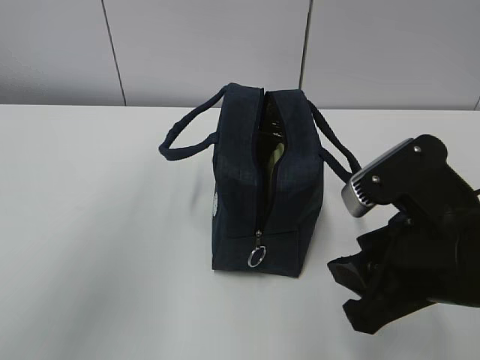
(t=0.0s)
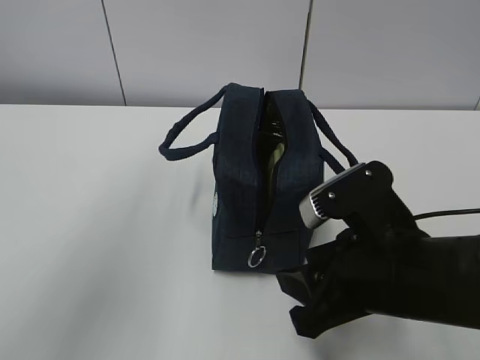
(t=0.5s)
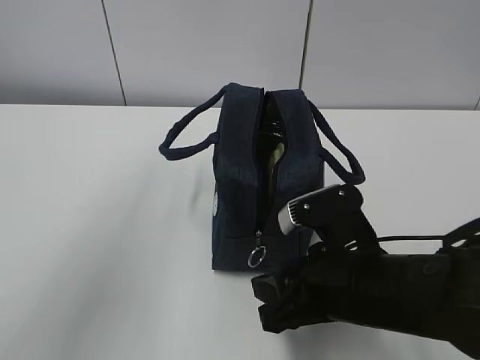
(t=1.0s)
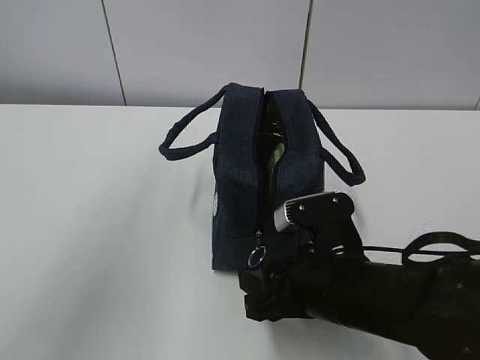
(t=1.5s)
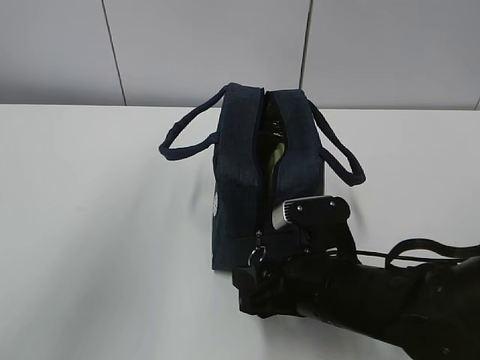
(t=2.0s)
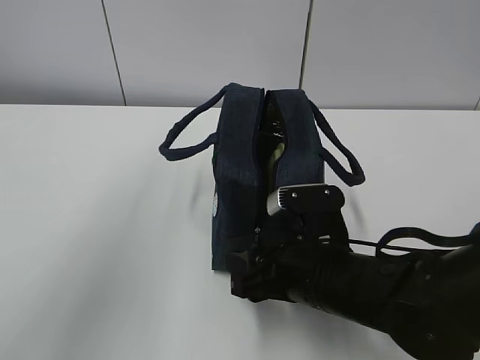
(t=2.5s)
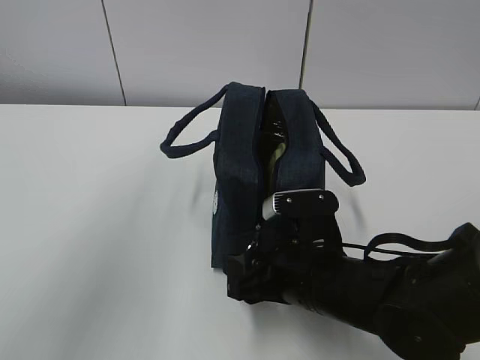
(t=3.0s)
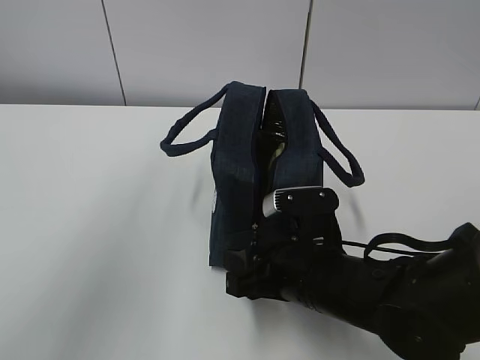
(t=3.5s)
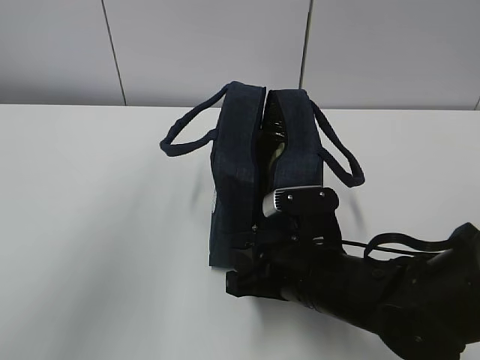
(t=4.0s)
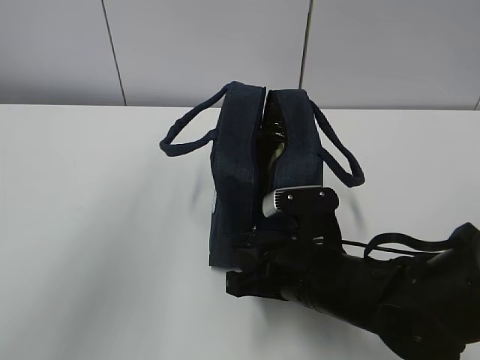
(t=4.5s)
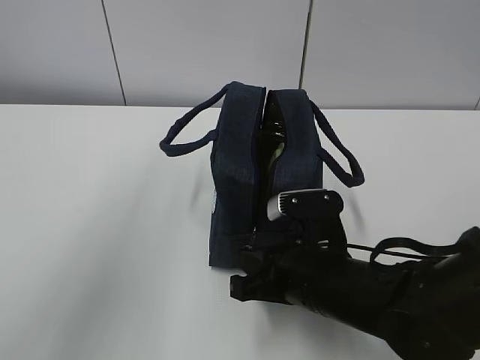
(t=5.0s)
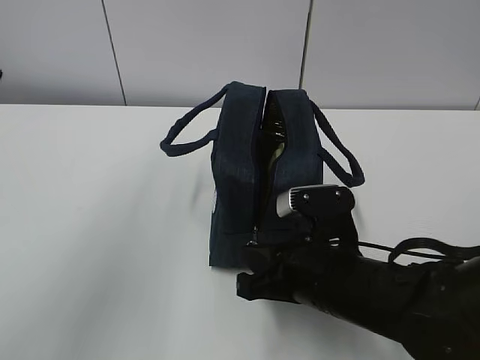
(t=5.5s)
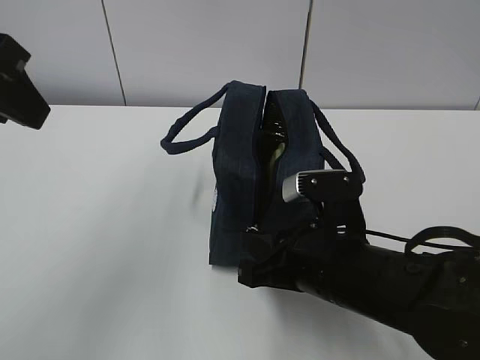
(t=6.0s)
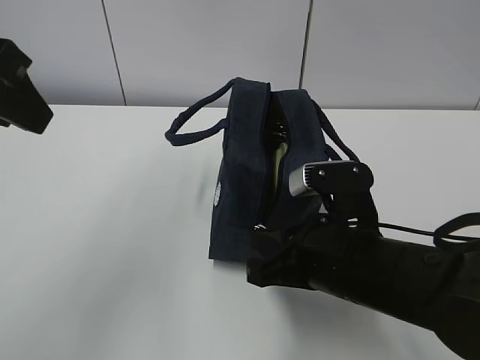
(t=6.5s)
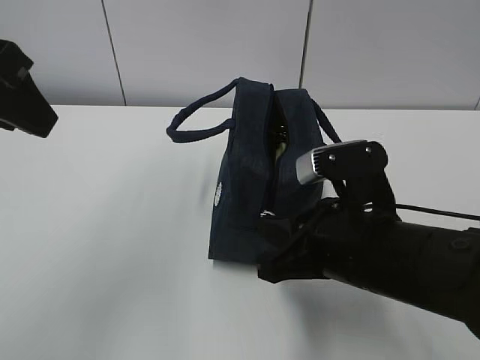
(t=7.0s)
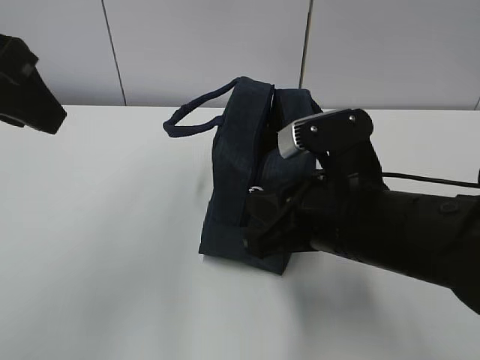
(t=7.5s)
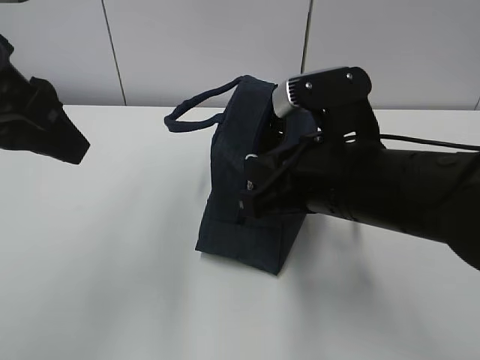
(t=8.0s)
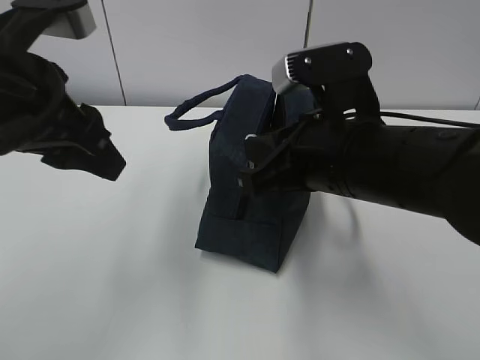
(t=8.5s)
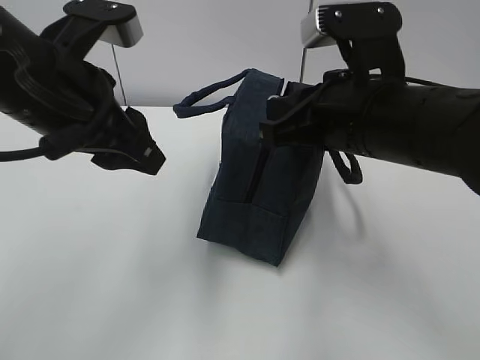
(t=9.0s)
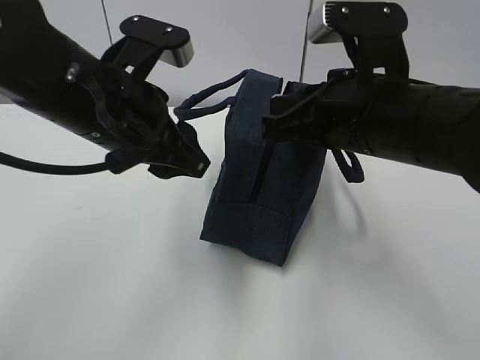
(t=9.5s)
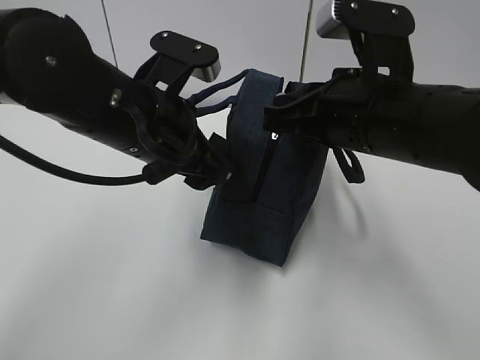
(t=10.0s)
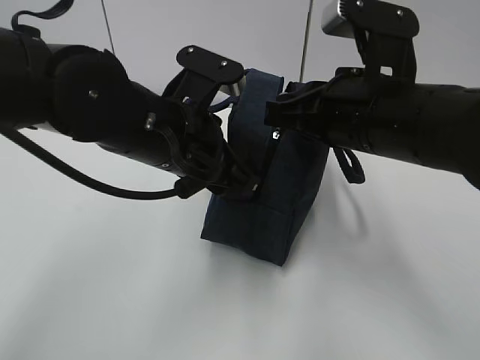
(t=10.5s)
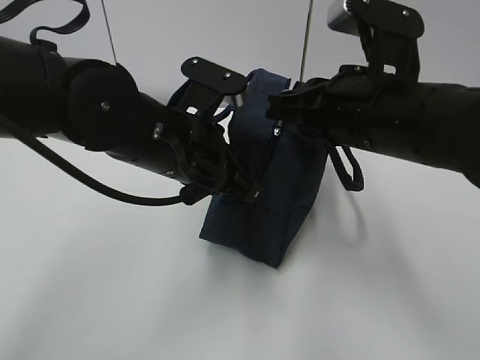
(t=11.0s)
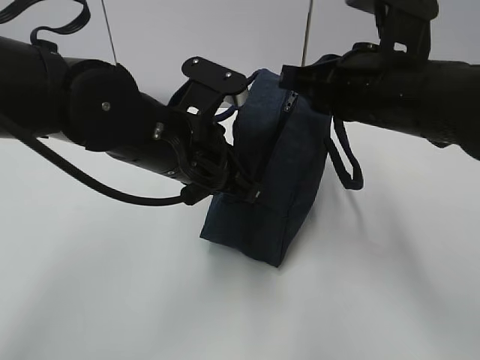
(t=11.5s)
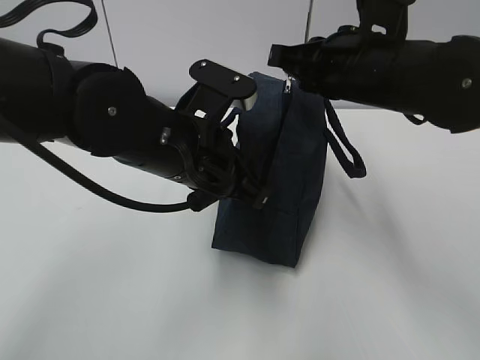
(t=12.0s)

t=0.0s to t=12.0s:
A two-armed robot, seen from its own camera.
Step, t=2.5s to t=8.5s: Pull the zipper with your right hand.
Step, t=9.0s to t=9.5s: Grab the lunch bag with your left hand.
t=0.0s to t=2.0s: The right gripper is displaced downward and to the left by some 15 cm.
t=2.0s to t=4.0s: The right gripper closes.
t=4.0s to t=6.0s: The right gripper closes up.
t=6.0s to t=8.0s: The right gripper moves upward, approximately 10 cm.
t=8.0s to t=10.0s: The left gripper goes about 15 cm to the right, downward and forward. Meanwhile the right gripper ends up roughly 5 cm from where it was.
t=10.0s to t=12.0s: The left gripper closes up, while the right gripper heads forward, covering about 5 cm.

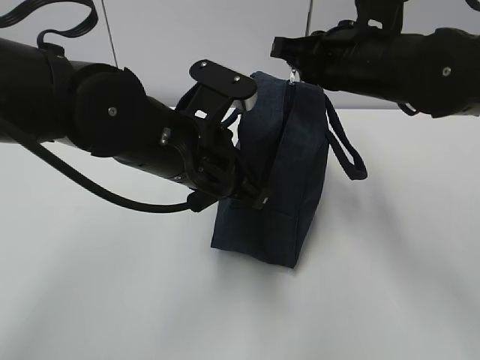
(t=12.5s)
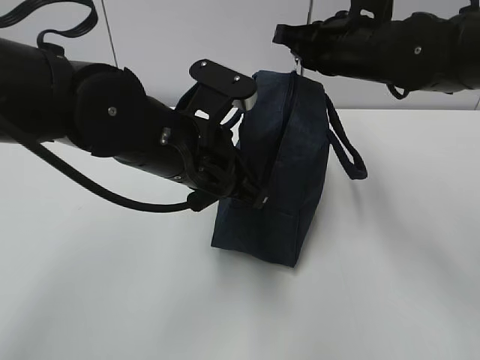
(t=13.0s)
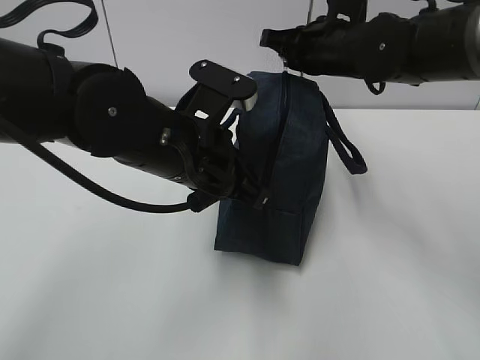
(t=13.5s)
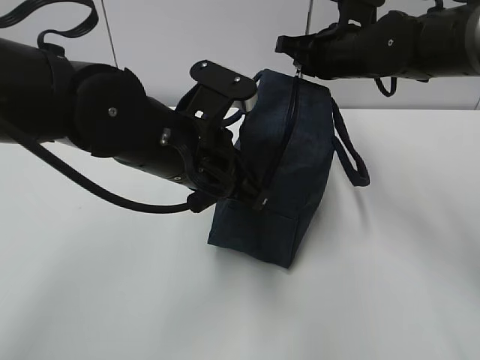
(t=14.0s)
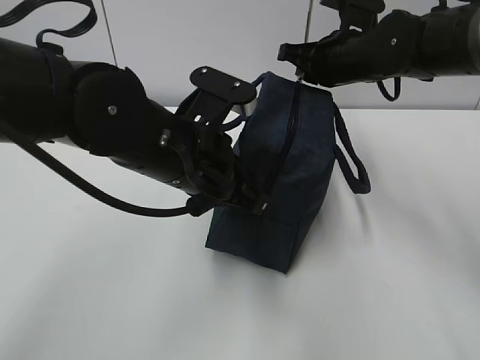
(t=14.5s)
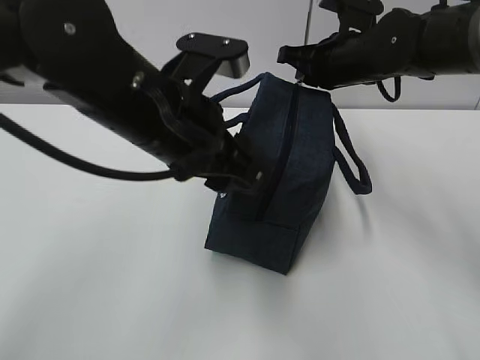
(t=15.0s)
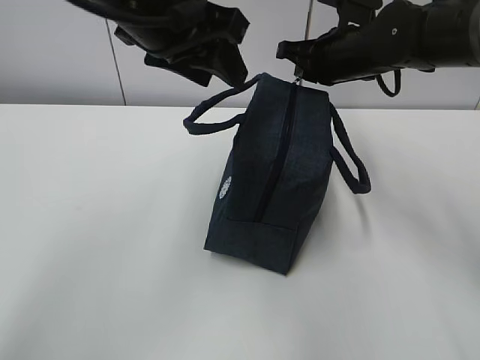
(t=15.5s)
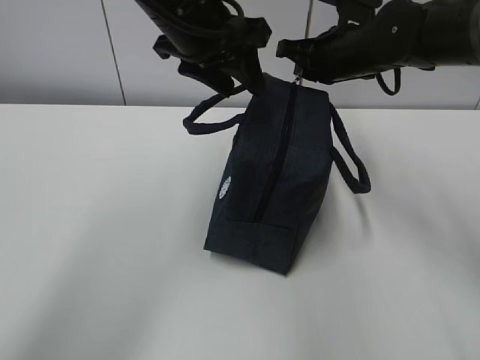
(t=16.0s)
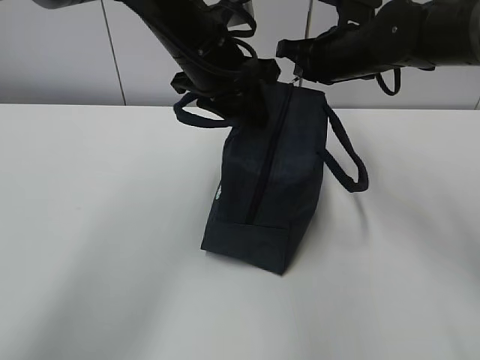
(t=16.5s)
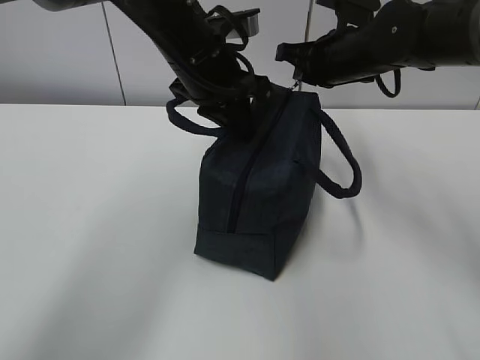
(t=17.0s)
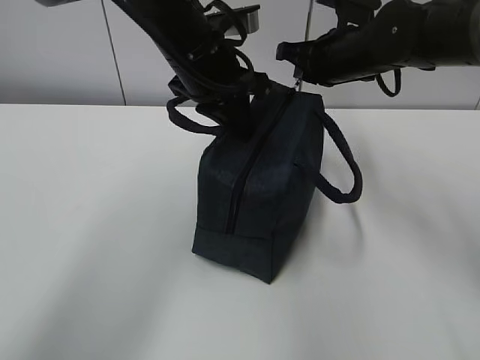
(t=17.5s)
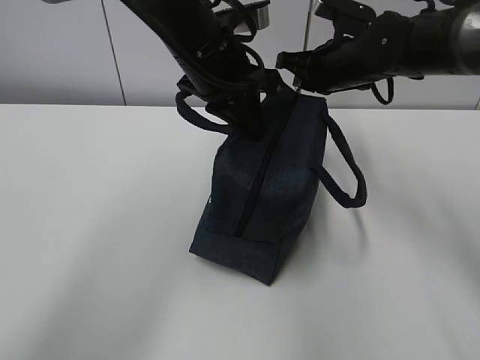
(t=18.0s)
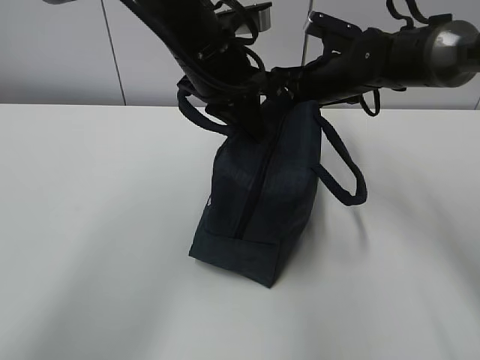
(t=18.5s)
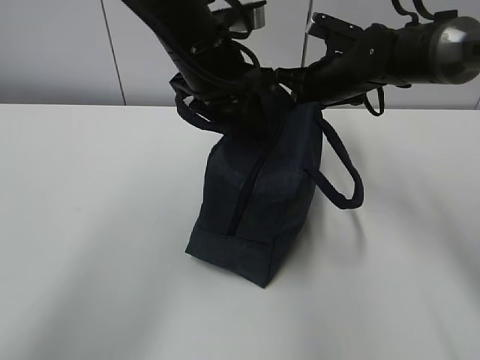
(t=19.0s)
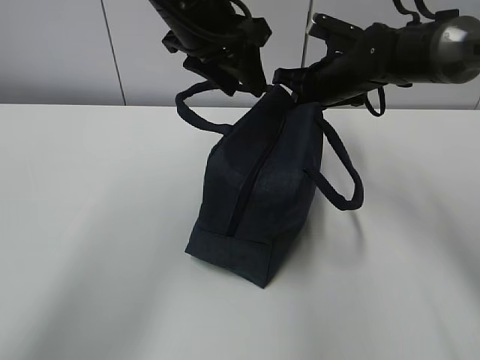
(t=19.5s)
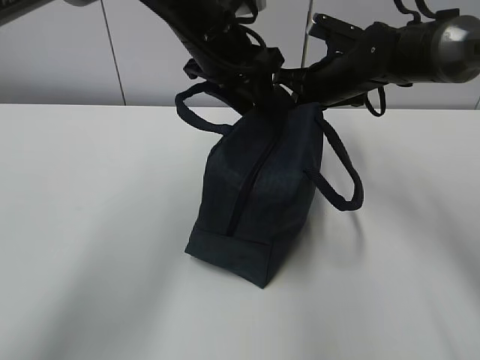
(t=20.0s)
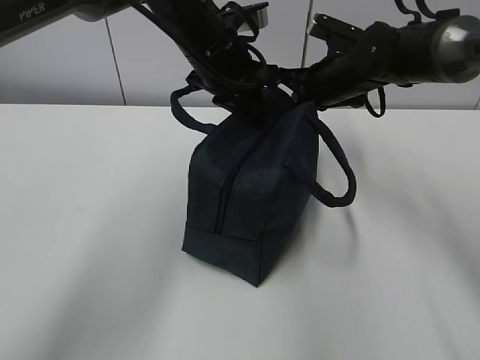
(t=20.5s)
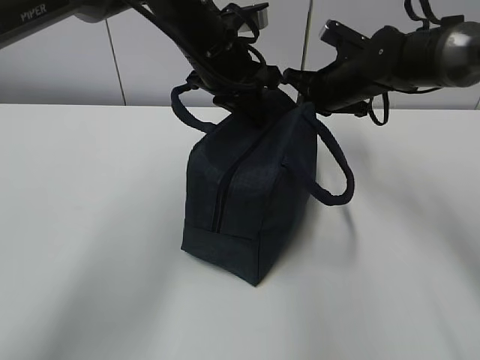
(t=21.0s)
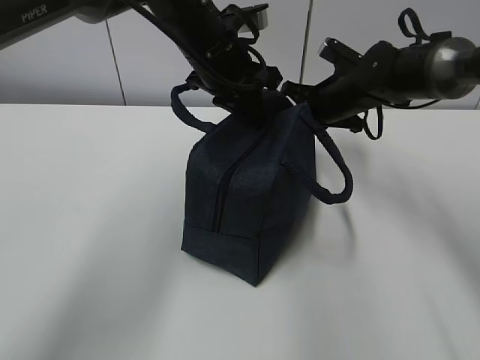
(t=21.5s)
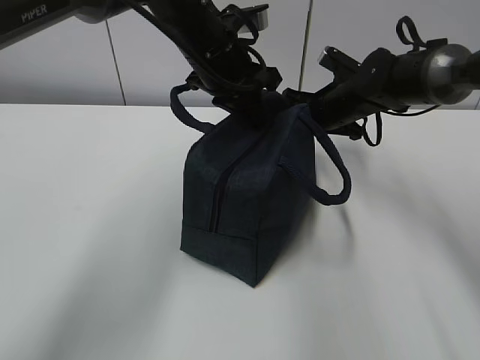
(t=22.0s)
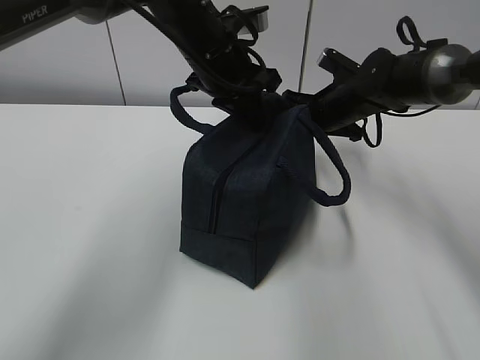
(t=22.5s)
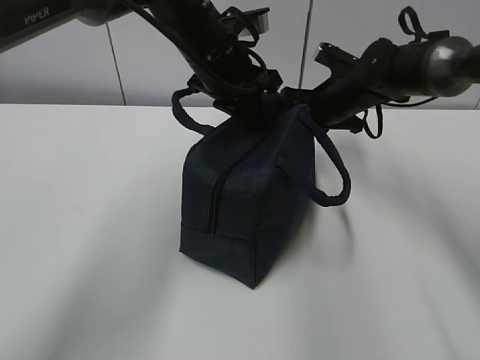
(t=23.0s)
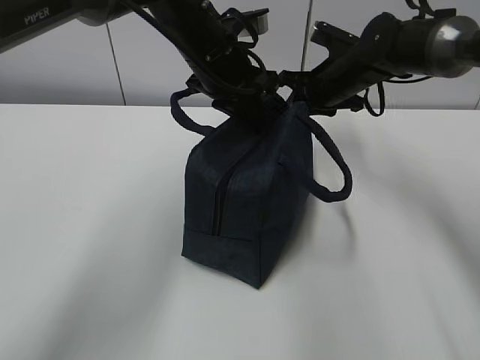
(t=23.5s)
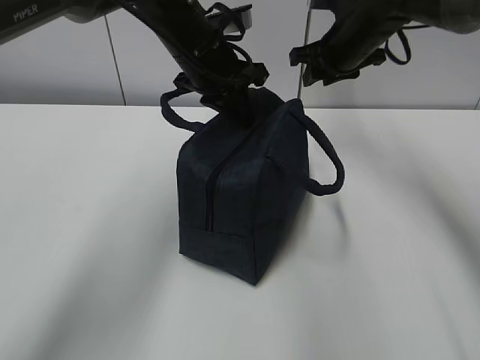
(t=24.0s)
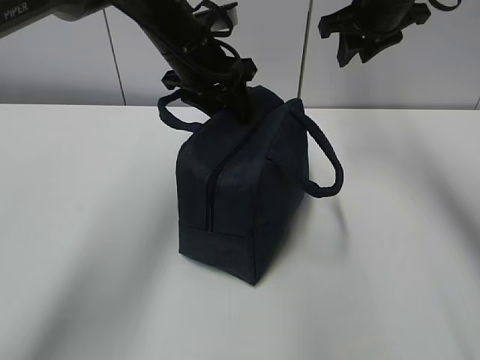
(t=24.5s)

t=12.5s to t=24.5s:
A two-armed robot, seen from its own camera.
t=12.5s to t=14.5s: The right gripper is displaced forward by approximately 10 cm.
t=14.5s to t=16.5s: The left gripper goes about 15 cm forward and upward, and opens.
t=16.5s to t=18.5s: The right gripper ends up some 5 cm from where it was. The left gripper closes.
t=18.5s to t=20.5s: The left gripper opens, then closes again.
t=20.5s to t=22.5s: The grippers move only a little.
t=22.5s to t=24.5s: The right gripper moves upward, approximately 15 cm, and opens up, while the left gripper opens its fingers.

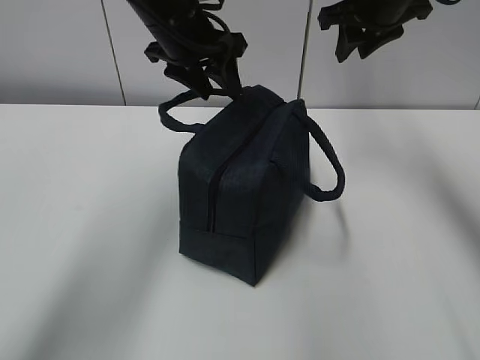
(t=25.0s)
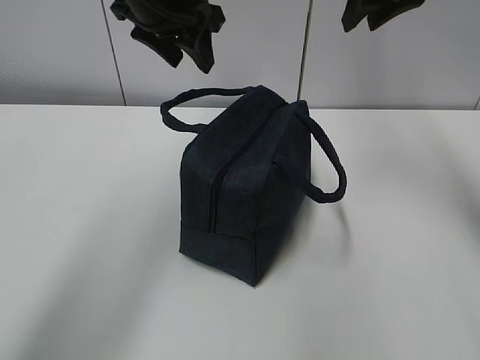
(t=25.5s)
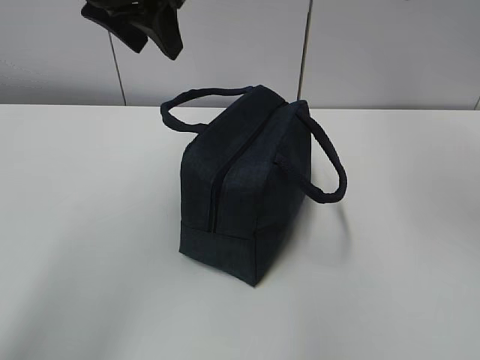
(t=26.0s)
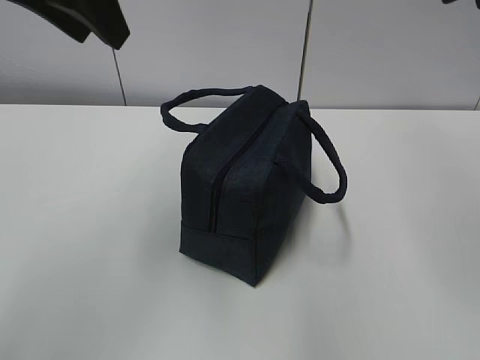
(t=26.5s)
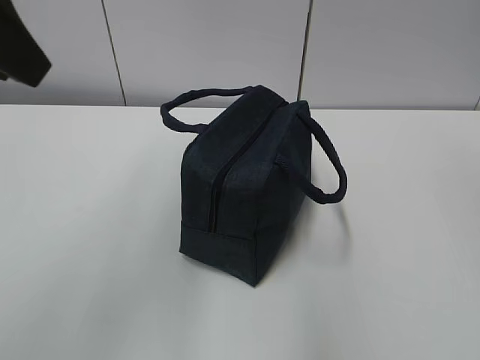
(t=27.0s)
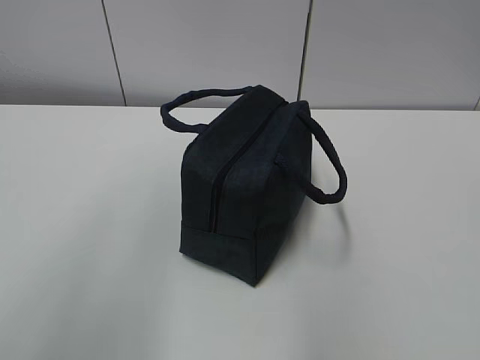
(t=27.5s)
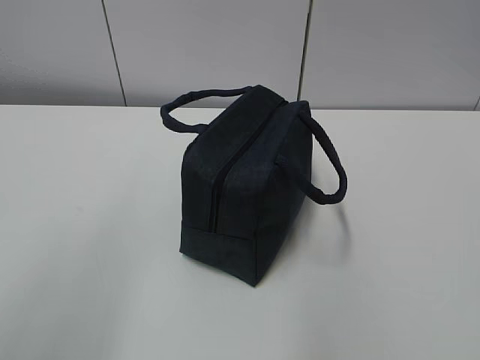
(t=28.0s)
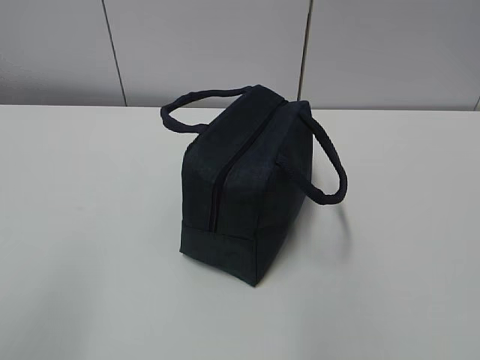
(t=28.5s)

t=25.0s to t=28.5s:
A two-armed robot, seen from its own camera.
t=25.0s to t=27.0s: The left gripper goes about 30 cm backward, upward and to the left. Meanwhile the right gripper is displaced backward by roughly 35 cm.
t=27.0s to t=28.5s: The left gripper travels backward, to the left and downward by roughly 25 cm; the right gripper goes approximately 20 cm backward and downward.
